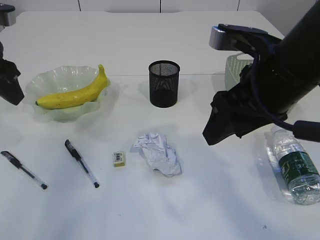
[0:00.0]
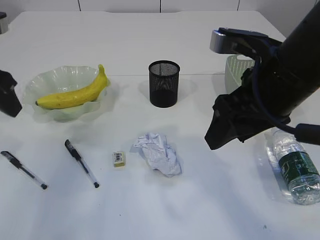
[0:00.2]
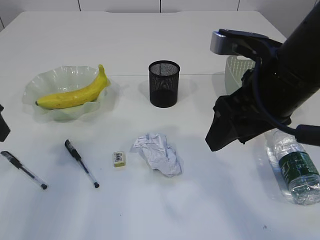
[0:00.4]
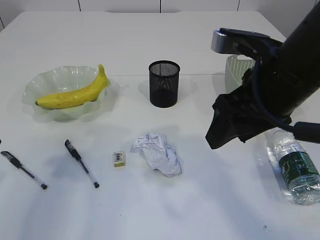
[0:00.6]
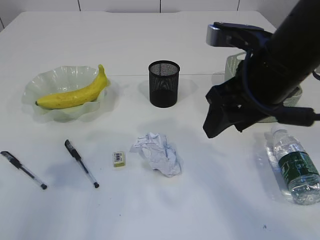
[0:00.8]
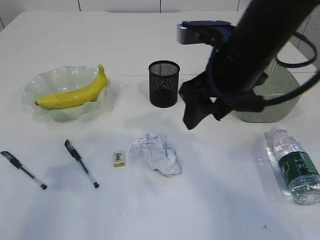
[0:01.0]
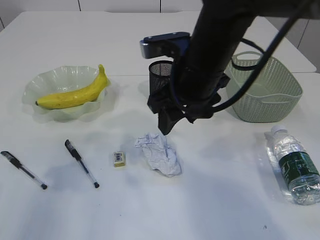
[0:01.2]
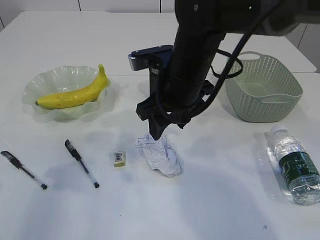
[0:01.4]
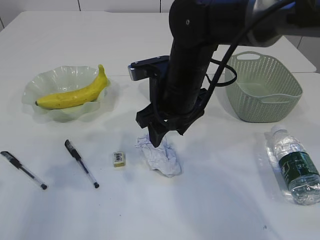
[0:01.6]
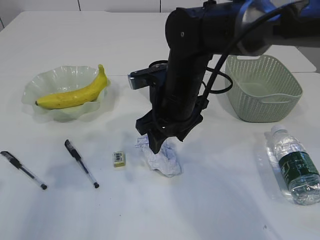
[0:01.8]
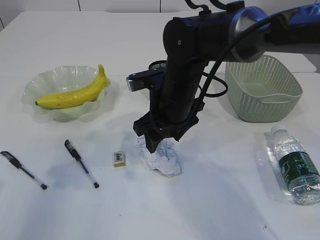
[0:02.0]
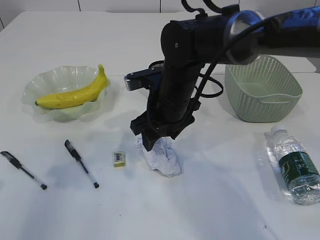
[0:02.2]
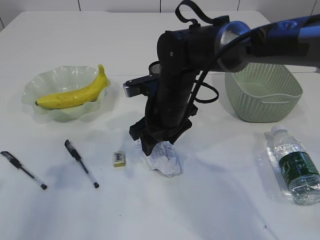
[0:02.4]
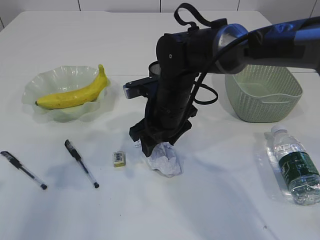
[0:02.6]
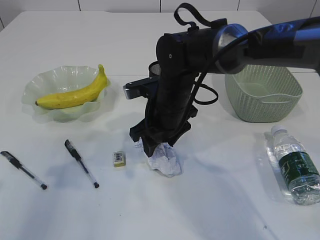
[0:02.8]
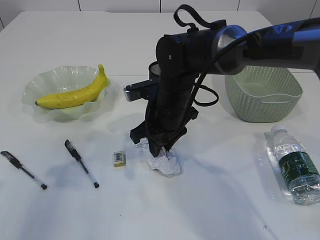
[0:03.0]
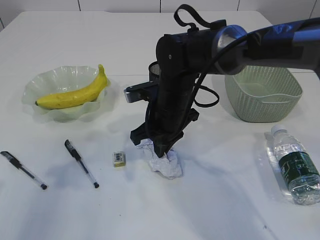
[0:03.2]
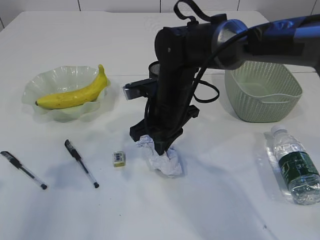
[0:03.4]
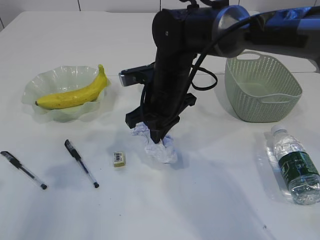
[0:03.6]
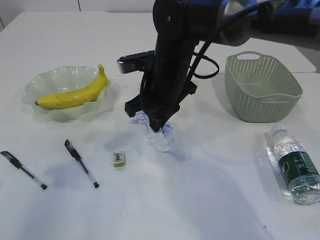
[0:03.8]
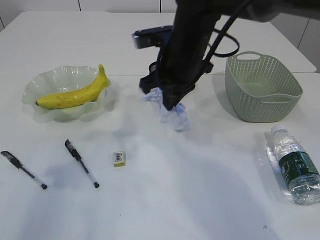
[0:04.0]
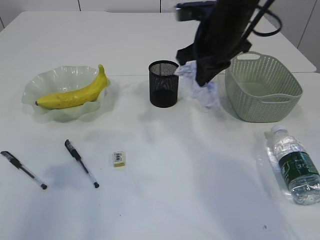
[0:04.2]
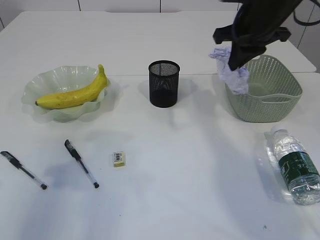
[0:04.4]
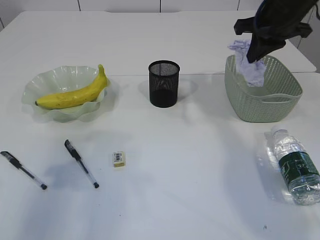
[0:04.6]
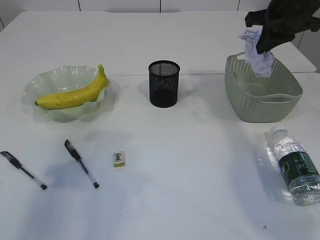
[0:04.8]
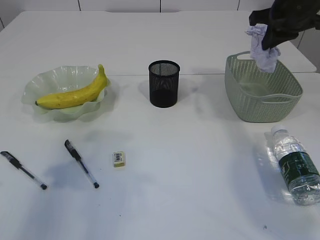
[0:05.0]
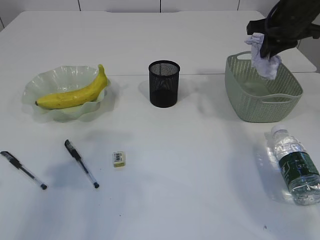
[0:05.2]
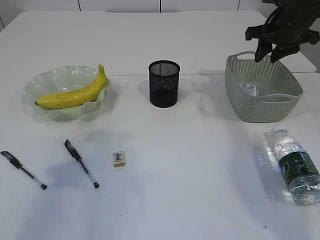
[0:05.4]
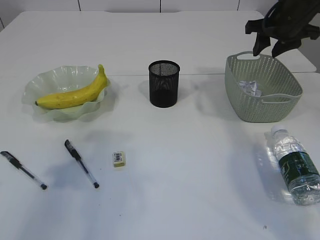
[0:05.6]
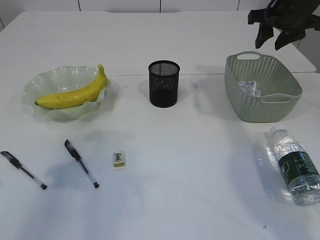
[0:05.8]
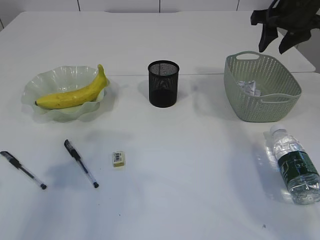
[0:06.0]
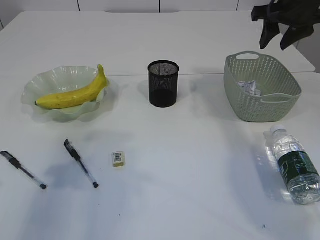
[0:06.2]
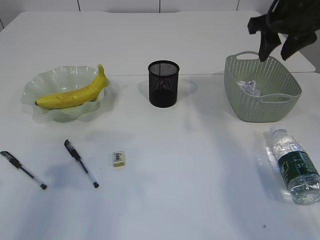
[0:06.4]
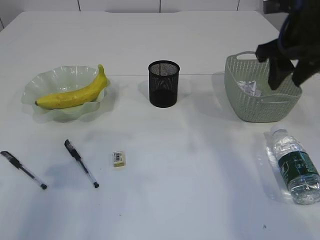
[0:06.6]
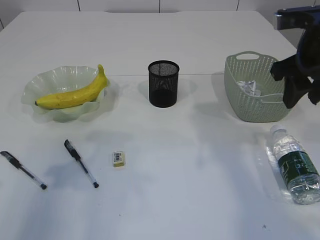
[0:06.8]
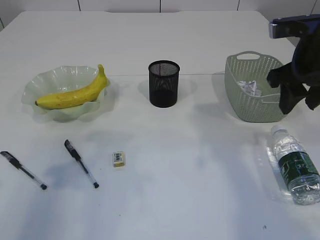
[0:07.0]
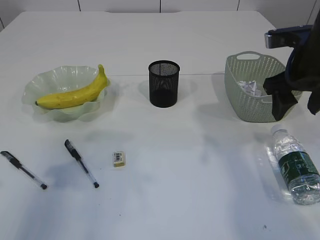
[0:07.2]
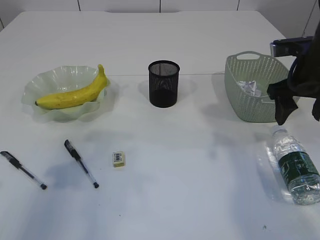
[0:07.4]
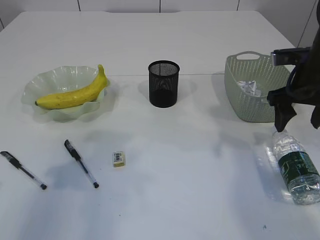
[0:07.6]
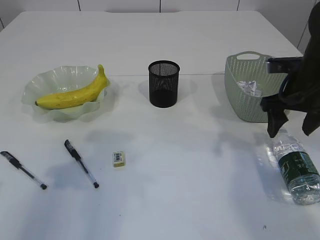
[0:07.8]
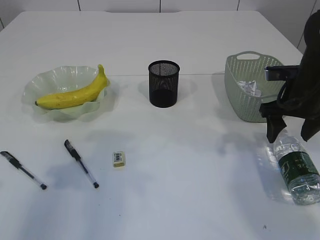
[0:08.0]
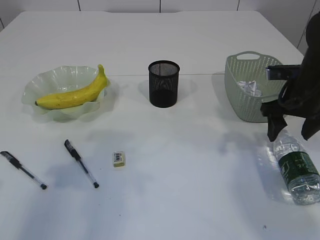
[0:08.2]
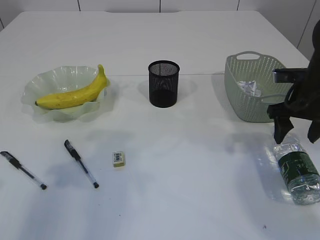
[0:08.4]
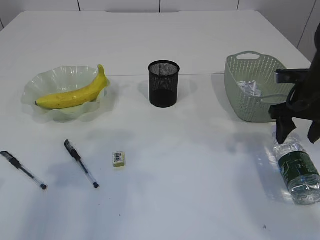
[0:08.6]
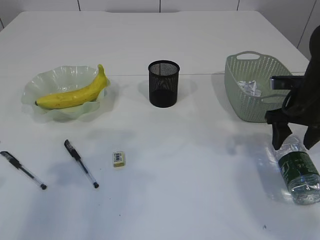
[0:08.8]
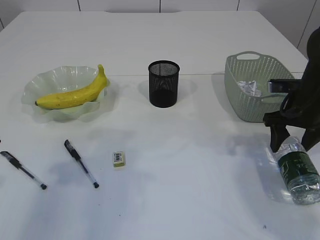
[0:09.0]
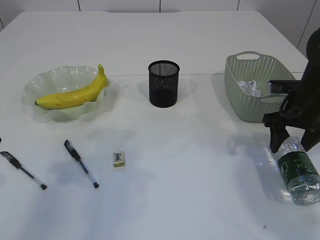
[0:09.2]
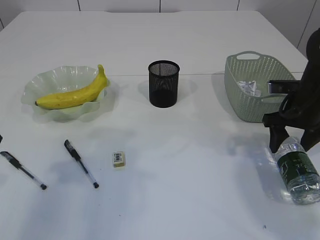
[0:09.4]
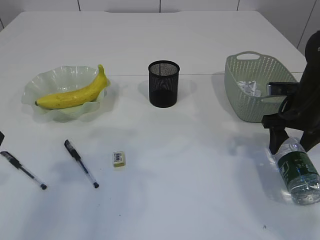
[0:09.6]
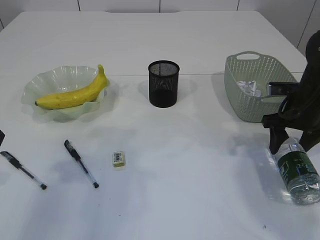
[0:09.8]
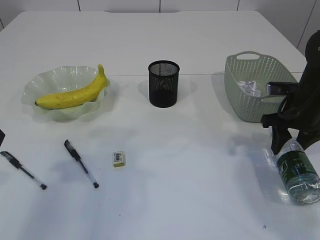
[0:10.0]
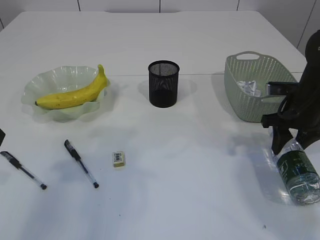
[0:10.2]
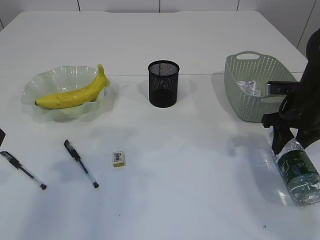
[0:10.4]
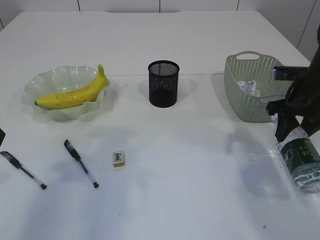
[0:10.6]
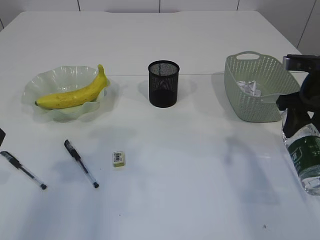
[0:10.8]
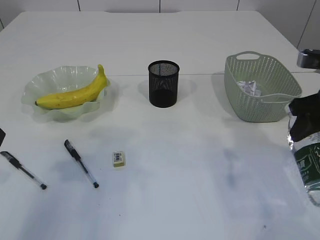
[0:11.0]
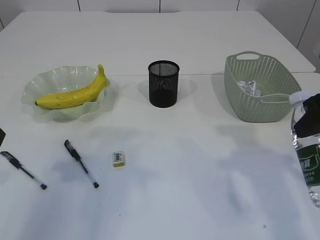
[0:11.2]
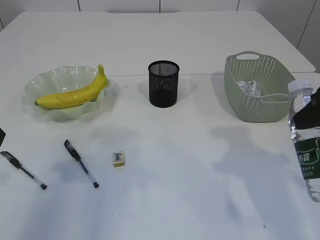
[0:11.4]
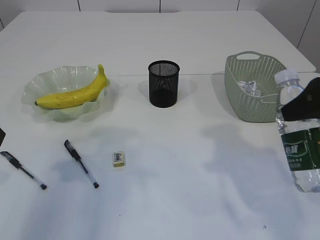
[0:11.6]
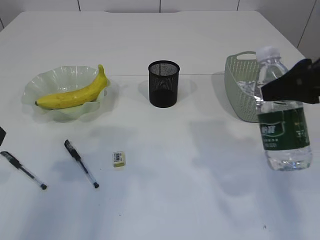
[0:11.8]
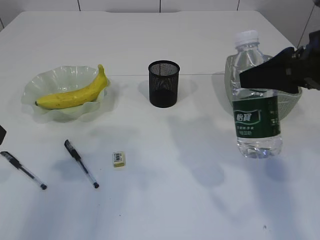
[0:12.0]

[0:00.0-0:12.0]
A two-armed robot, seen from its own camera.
Step, 0:00.0 to 0:03.8: Pick up the waste paper.
Step, 0:04.0 to 0:05.4: Place the waste paper in the basket.
Step, 0:05.6 to 0:10.8: Pick up the bottle with the right arm.
0:00.0 to 0:01.6: The left gripper moves backward, approximately 10 cm. Meanwhile the right gripper moves to the left, forward and downward, some 15 cm.
0:01.6 to 0:03.0: The right gripper shifts roughly 5 cm downward, and closes up.
0:03.0 to 0:04.4: The right gripper moves to the right and upward, about 20 cm, and closes up.
0:04.4 to 0:06.0: The right gripper shifts about 10 cm to the right, and opens up.
0:06.0 to 0:07.6: The right gripper shifts approximately 15 cm backward and downward, and opens.
0:07.6 to 0:09.0: The right gripper travels downward by approximately 5 cm.
0:09.0 to 0:10.4: The right gripper closes.
0:10.4 to 0:12.0: The right gripper heads upward and backward, covering some 20 cm.

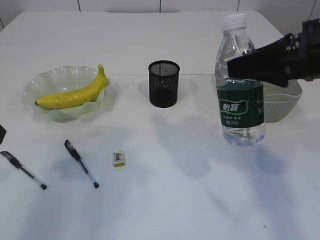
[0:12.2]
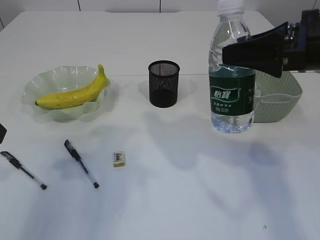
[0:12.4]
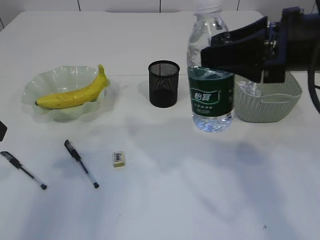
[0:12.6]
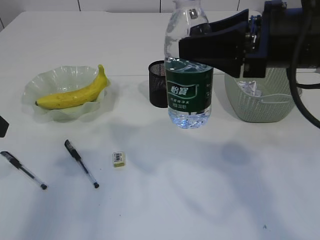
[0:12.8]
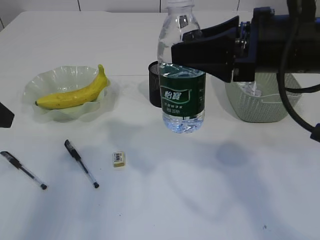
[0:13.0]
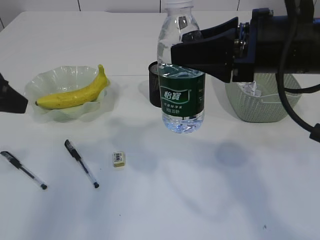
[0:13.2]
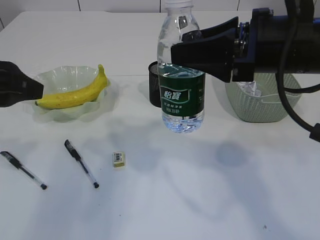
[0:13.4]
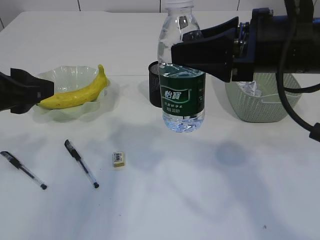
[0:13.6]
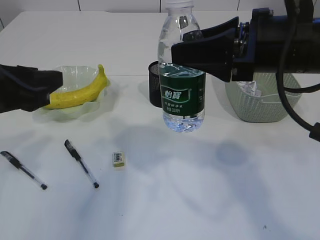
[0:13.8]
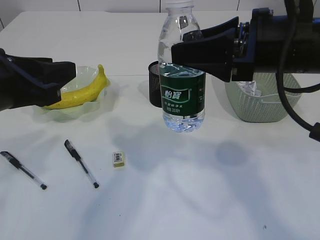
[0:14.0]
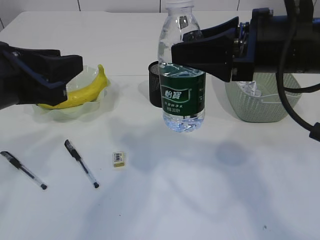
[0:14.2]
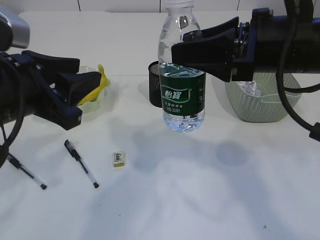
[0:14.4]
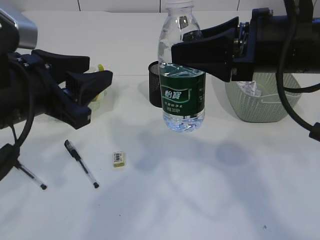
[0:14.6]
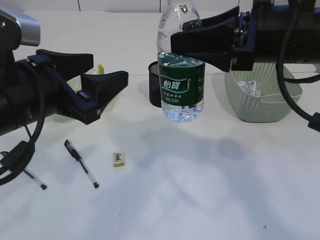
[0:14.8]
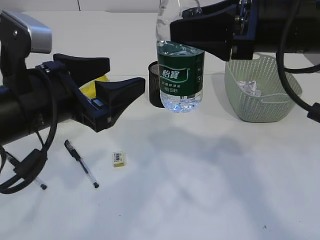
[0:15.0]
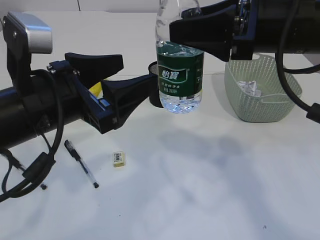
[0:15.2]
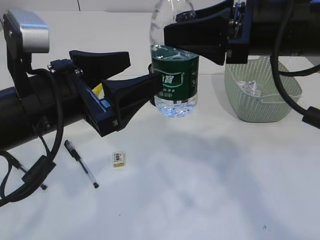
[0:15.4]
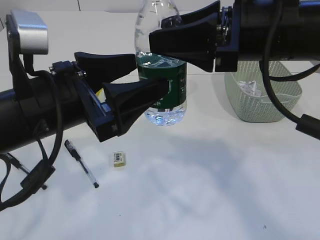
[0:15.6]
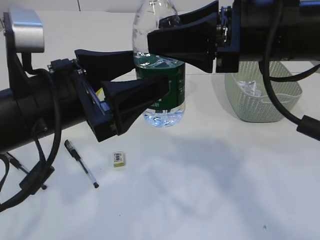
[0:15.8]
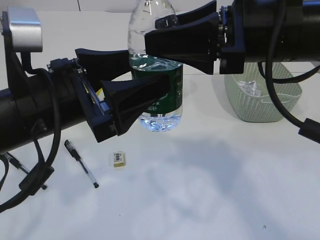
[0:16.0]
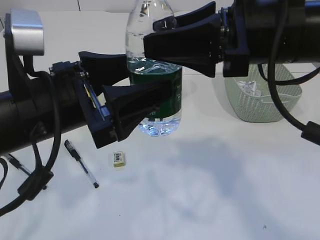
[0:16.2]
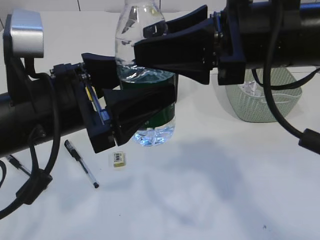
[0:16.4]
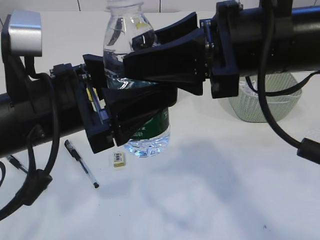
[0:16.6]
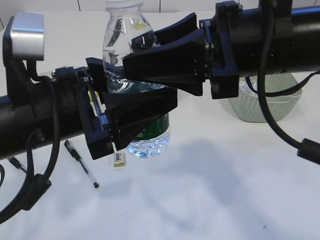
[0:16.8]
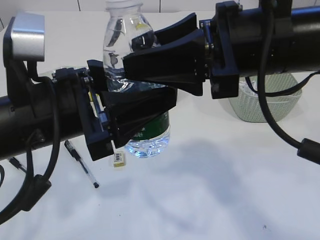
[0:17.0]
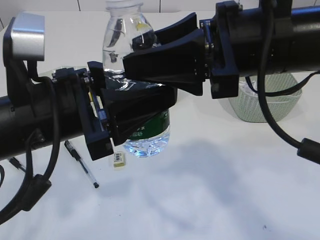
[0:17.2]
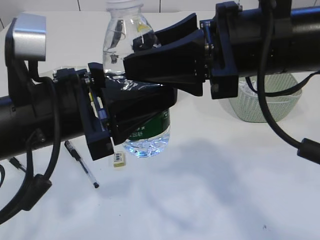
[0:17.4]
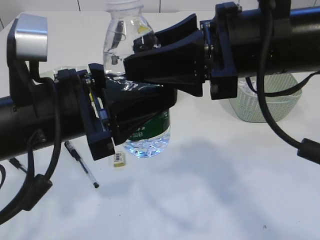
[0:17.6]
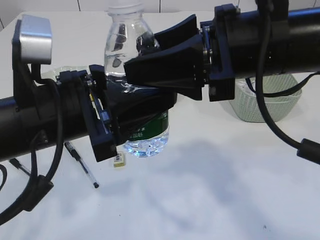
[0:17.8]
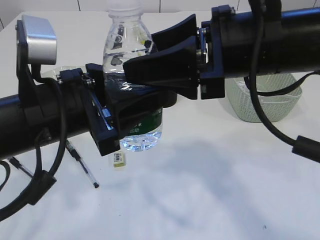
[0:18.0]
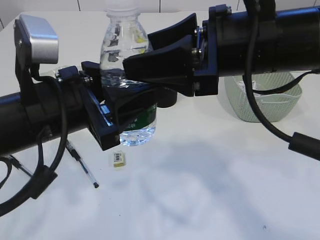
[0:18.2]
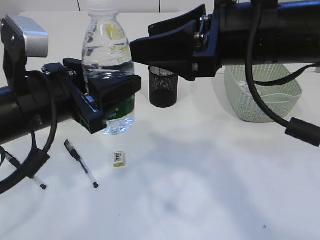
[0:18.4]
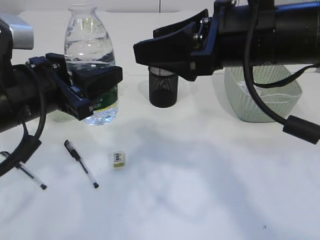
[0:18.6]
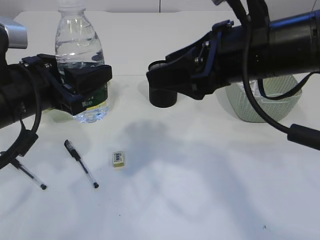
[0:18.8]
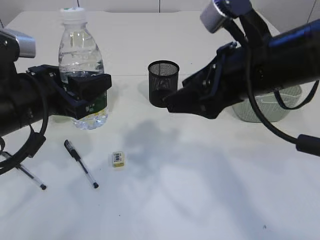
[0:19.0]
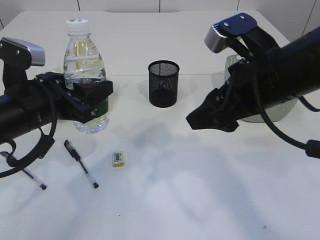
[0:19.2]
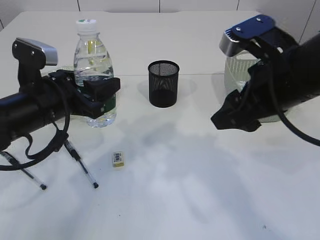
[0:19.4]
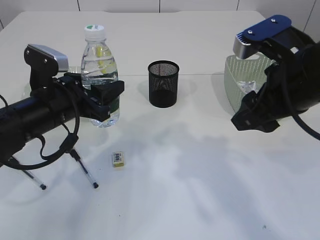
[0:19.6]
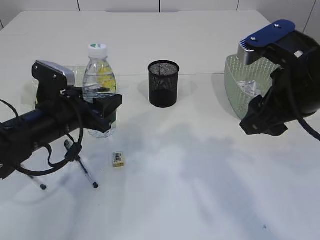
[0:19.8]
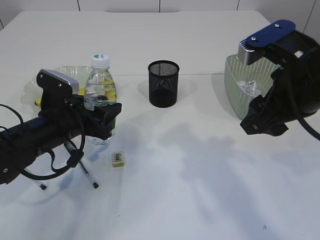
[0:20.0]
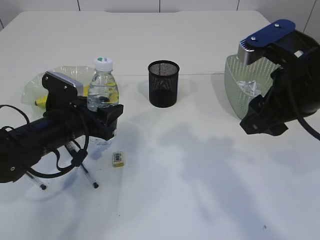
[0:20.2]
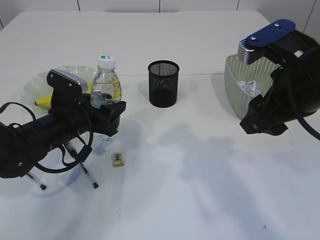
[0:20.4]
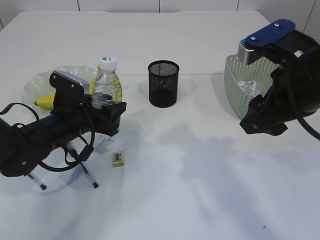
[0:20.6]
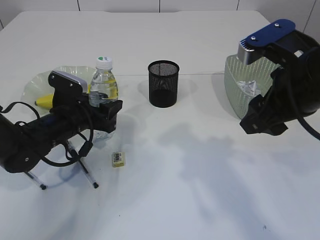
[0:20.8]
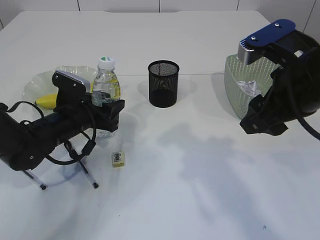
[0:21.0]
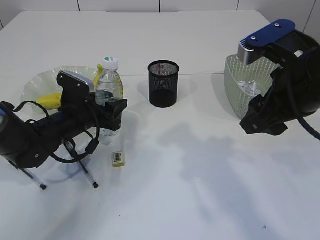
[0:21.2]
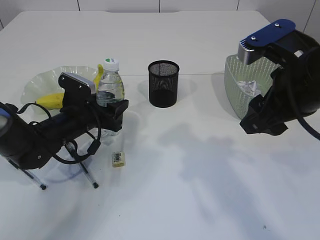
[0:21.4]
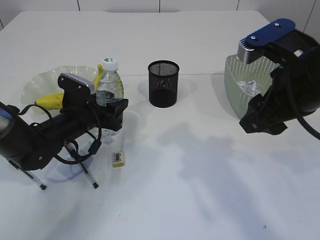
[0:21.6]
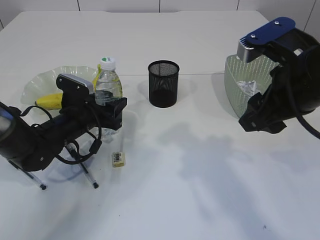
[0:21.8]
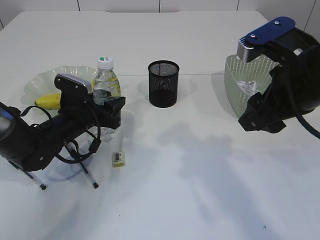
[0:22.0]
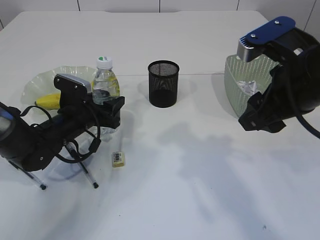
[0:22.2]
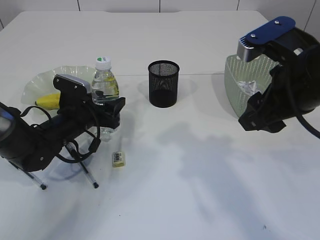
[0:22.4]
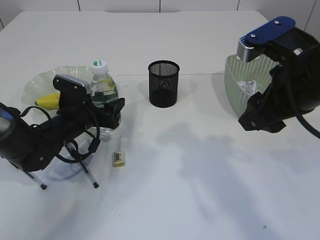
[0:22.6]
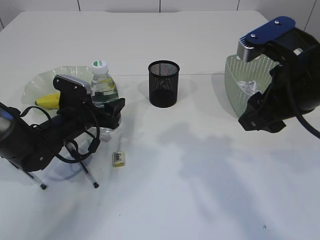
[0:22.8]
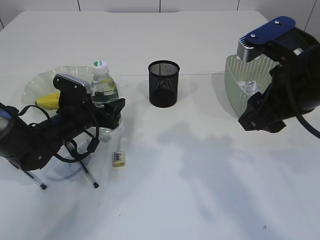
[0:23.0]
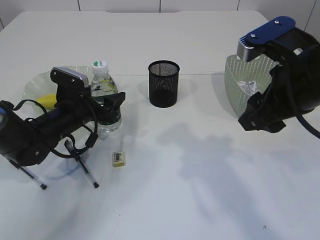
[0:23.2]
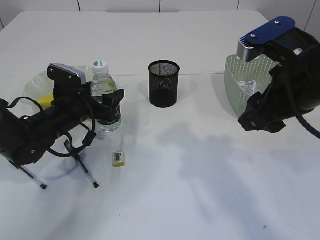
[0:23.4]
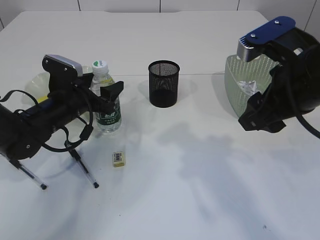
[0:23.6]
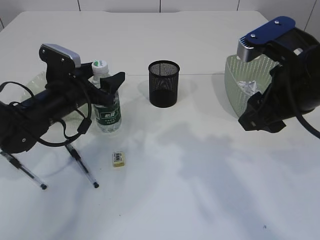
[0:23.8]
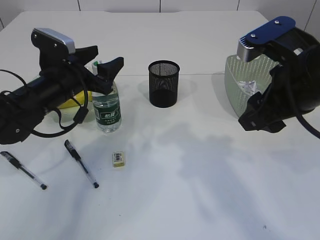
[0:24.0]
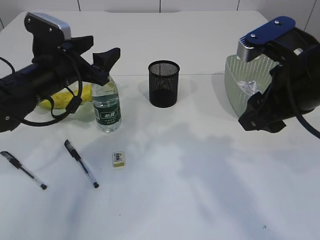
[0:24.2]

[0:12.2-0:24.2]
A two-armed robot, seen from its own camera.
Step, 0:12.2 to 0:18.4: transfer the bottle to the left arm.
0:12.2 to 0:13.8: The right gripper shifts some 5 cm to the left; the left gripper shifts approximately 5 cm to the right.
0:13.8 to 0:15.2: The left gripper is displaced to the right by approximately 10 cm, and opens.
0:15.2 to 0:16.6: The right gripper moves approximately 5 cm.
0:16.6 to 0:18.2: The left gripper closes its fingers.
0:18.2 to 0:19.8: The left gripper travels forward and downward by about 15 cm. Meanwhile the right gripper moves to the right, about 5 cm.
0:19.8 to 0:21.2: The left gripper travels forward and downward by approximately 10 cm.
0:21.2 to 0:22.6: There are only small adjustments of the grippers.
0:22.6 to 0:24.2: The left gripper is displaced upward by approximately 10 cm.
